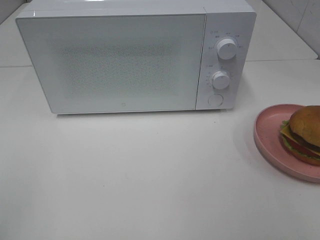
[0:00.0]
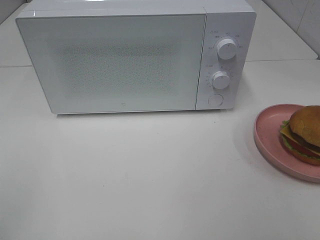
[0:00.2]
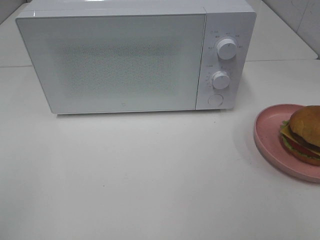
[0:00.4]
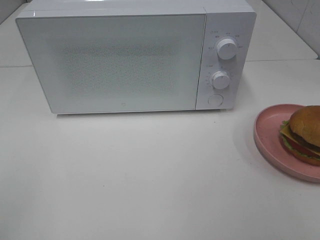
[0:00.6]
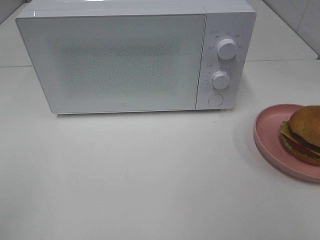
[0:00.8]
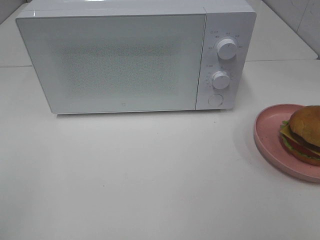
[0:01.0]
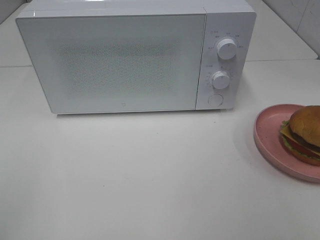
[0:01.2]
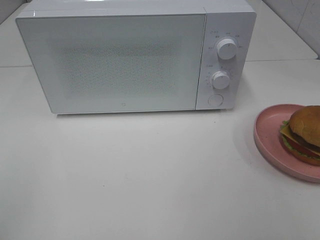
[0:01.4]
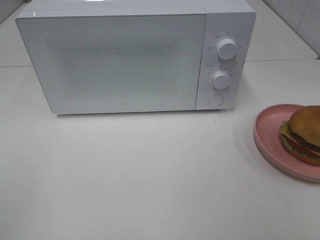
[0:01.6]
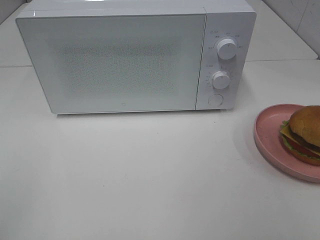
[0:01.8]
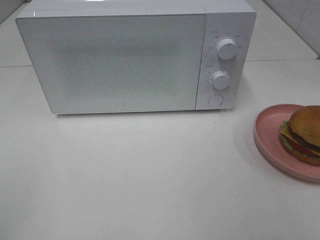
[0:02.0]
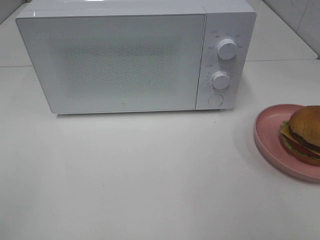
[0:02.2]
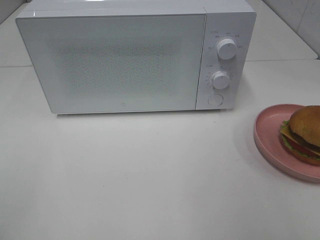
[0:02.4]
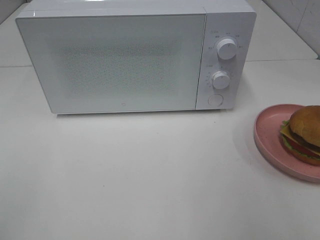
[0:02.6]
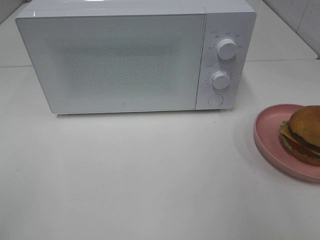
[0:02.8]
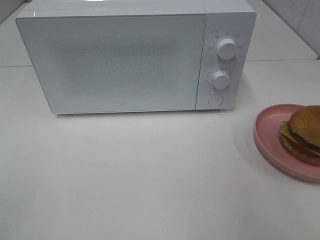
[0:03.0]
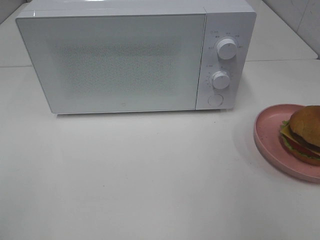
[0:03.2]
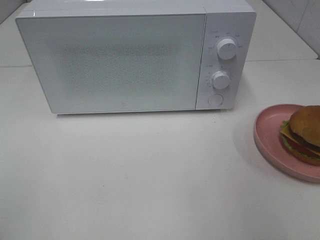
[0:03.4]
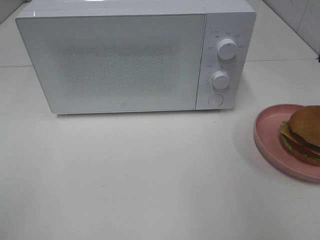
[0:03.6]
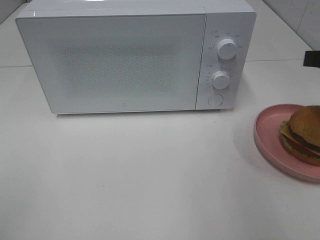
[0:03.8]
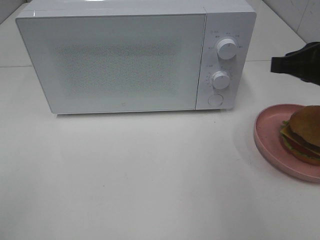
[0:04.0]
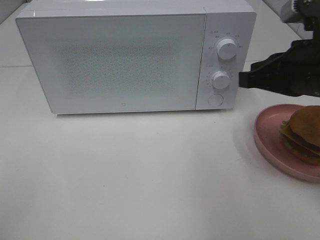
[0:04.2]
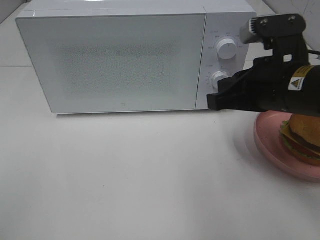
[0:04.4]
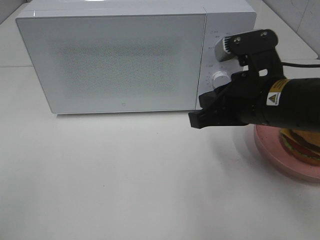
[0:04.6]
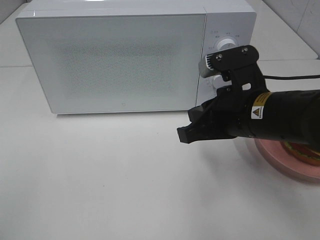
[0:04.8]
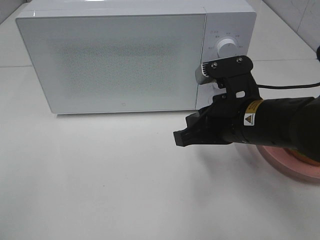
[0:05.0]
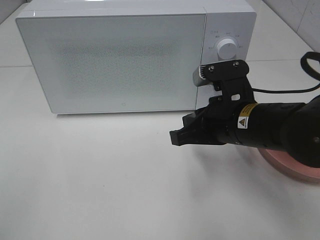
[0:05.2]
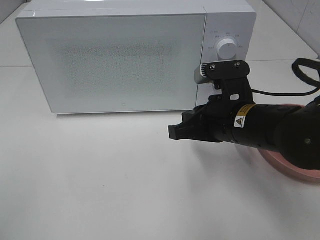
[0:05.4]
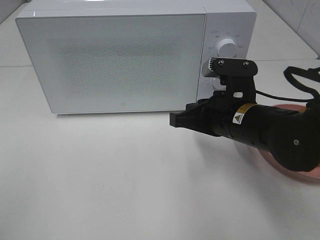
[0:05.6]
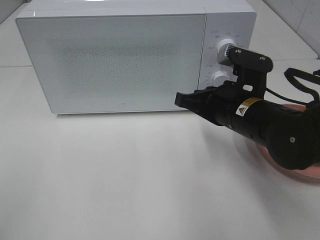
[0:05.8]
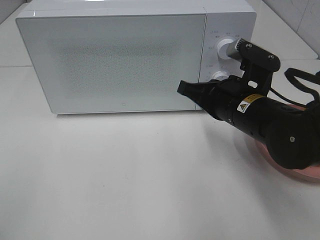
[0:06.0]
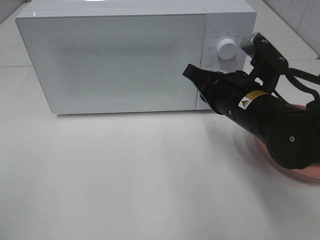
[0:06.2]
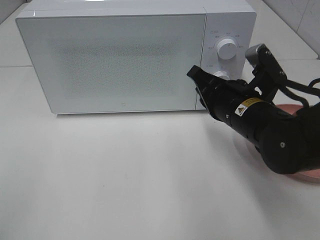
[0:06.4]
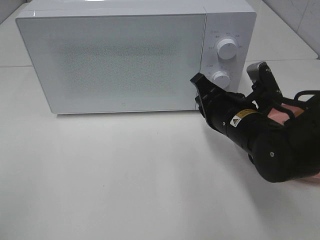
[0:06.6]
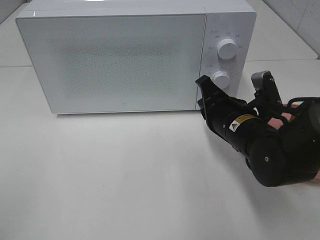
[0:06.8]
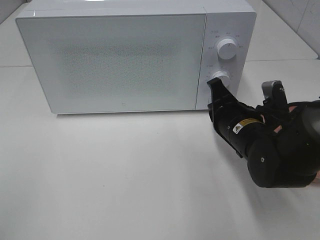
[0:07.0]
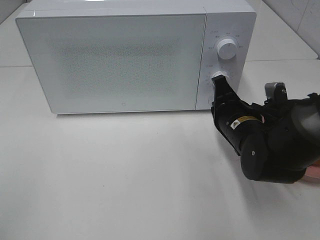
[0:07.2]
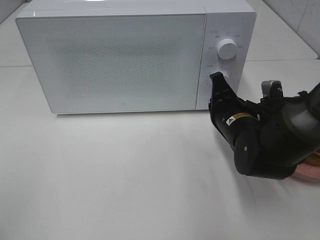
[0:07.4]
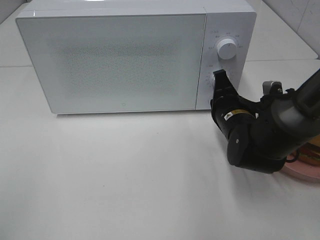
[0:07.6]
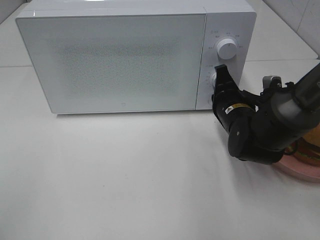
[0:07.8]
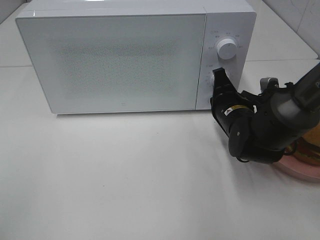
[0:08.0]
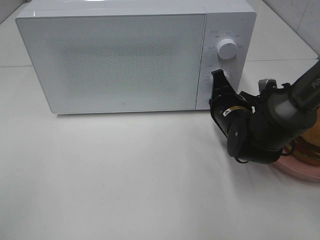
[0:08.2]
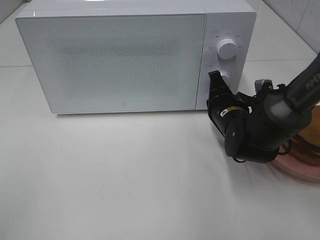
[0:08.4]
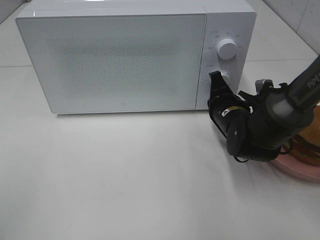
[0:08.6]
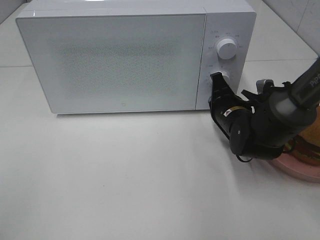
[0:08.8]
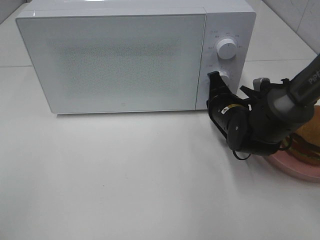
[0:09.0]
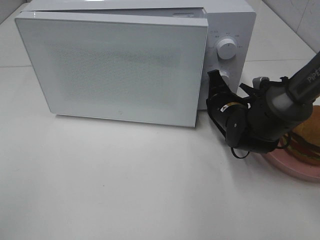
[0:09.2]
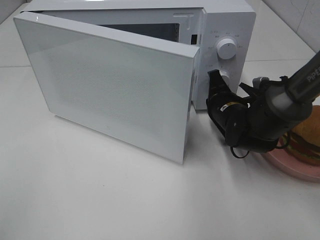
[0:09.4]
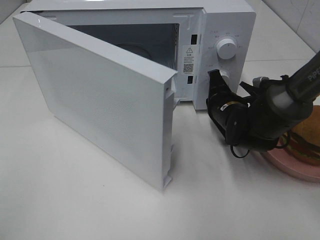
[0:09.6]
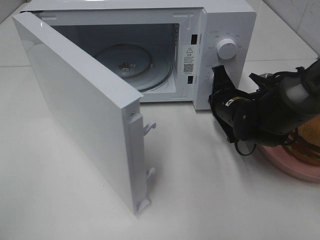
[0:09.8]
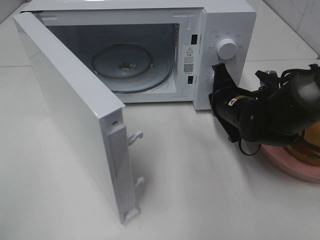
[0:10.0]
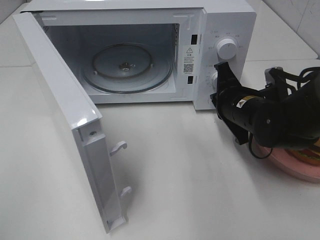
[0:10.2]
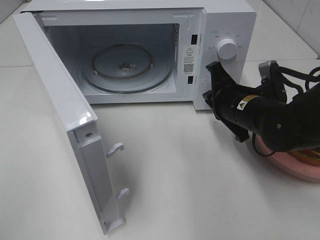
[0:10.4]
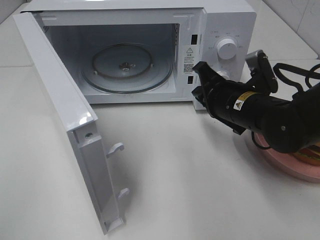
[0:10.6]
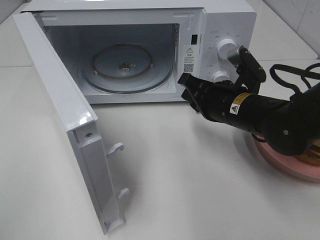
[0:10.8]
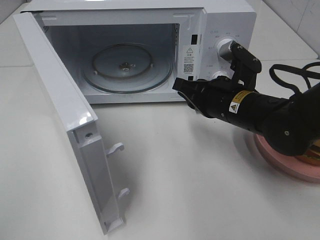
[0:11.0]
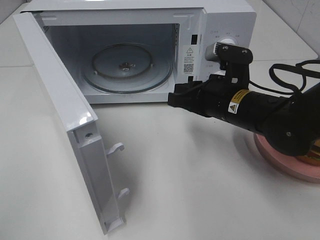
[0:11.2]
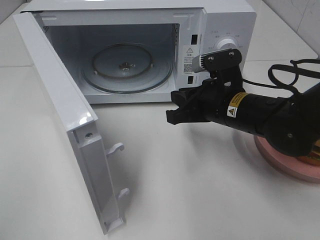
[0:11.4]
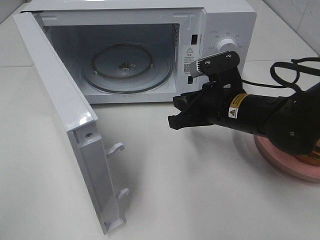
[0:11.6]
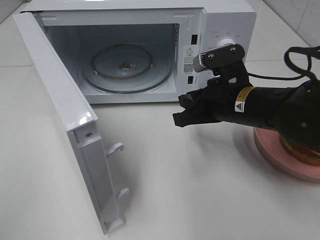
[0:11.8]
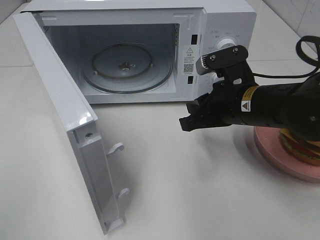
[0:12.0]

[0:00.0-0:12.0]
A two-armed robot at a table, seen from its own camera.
Task of the whole recording: Heat the burger.
Step, 0:00.0 to 0:10.0: Right hand: press the switch.
0:00.0 to 0:01.6: Neither gripper changes place.
0:03.0 to 0:04.4: The right gripper goes approximately 15 cm to the left, downward and forward, and closes.
0:04.4 to 0:06.0: The right gripper travels downward by about 5 cm.
0:06.0 to 0:07.6: The right gripper travels downward by about 5 cm.
0:07.6 to 0:09.0: The grippers stay close to where they were, moving slightly.
0:09.0 to 0:10.4: The right gripper goes about 5 cm upward.

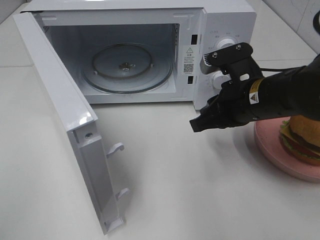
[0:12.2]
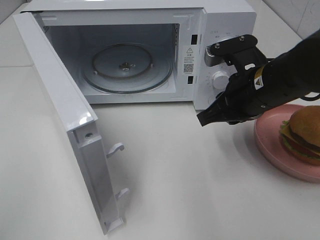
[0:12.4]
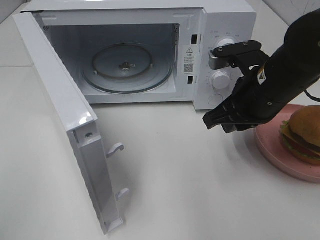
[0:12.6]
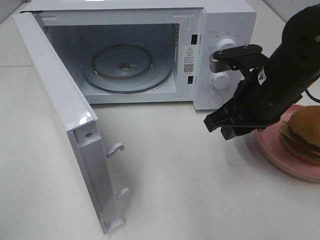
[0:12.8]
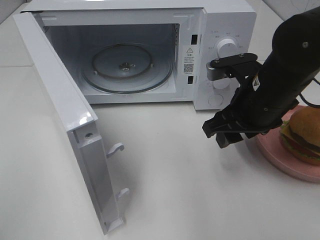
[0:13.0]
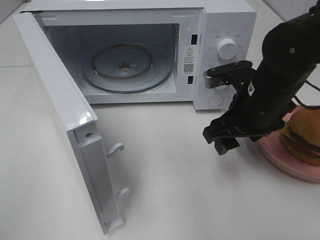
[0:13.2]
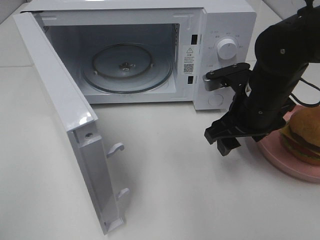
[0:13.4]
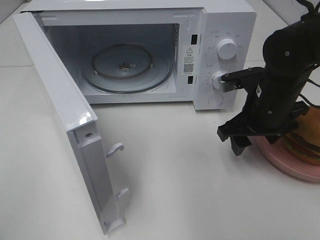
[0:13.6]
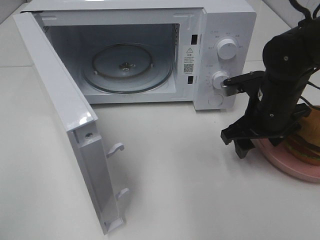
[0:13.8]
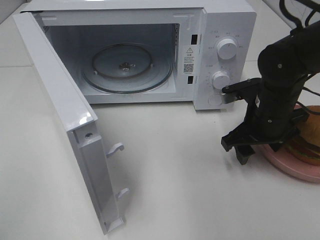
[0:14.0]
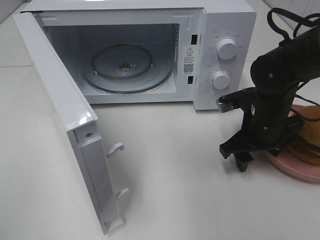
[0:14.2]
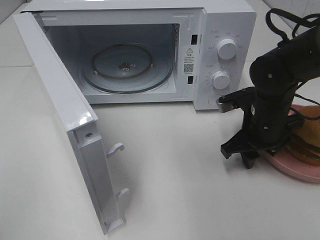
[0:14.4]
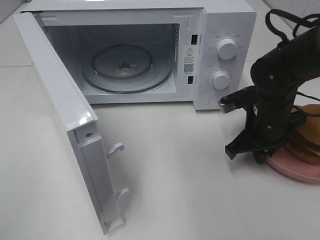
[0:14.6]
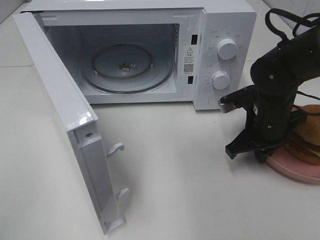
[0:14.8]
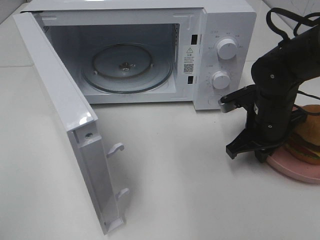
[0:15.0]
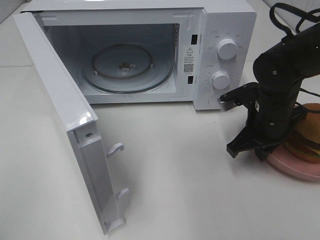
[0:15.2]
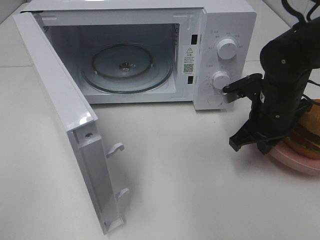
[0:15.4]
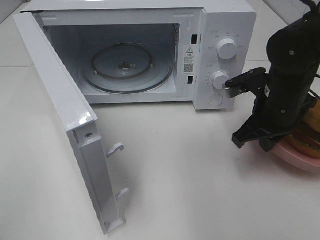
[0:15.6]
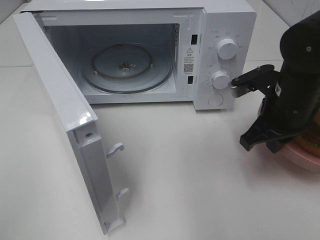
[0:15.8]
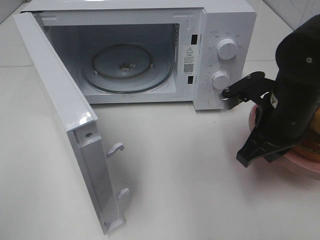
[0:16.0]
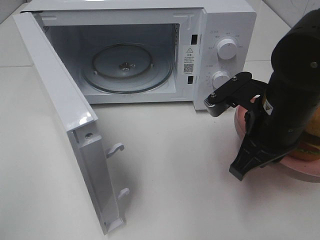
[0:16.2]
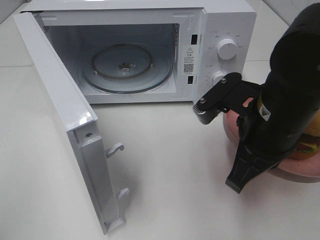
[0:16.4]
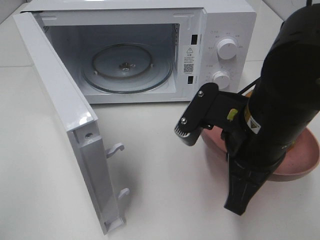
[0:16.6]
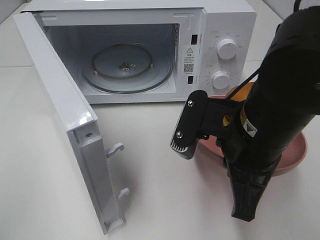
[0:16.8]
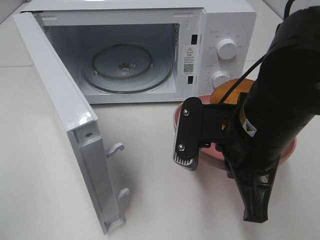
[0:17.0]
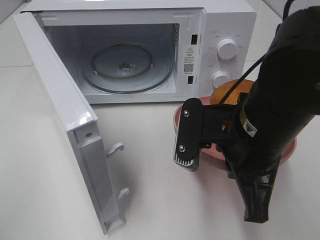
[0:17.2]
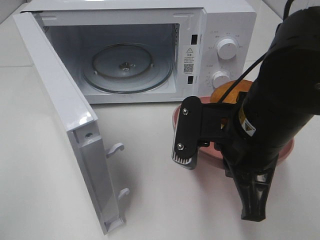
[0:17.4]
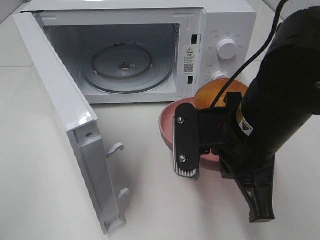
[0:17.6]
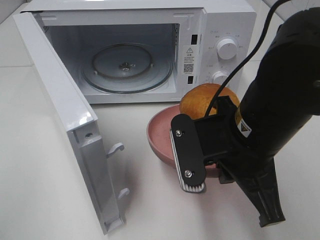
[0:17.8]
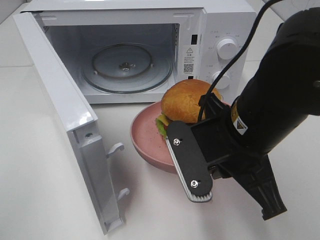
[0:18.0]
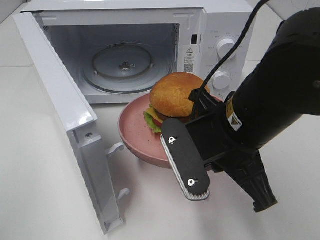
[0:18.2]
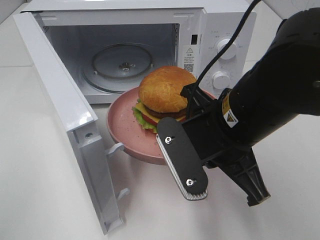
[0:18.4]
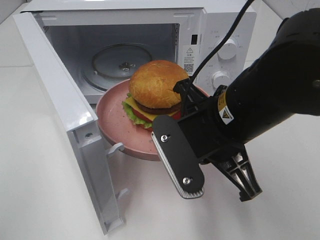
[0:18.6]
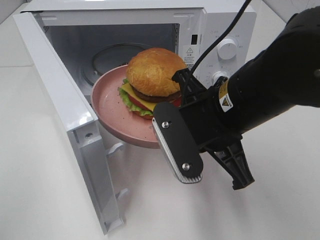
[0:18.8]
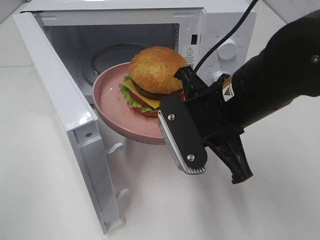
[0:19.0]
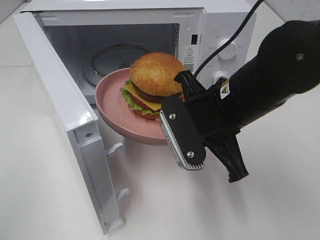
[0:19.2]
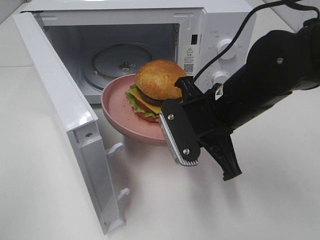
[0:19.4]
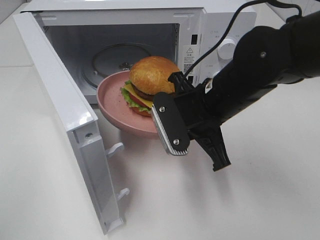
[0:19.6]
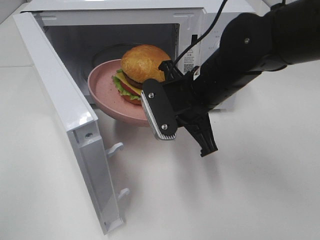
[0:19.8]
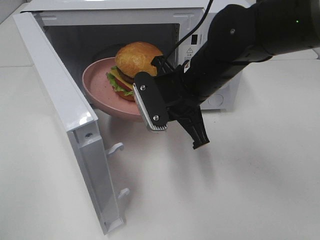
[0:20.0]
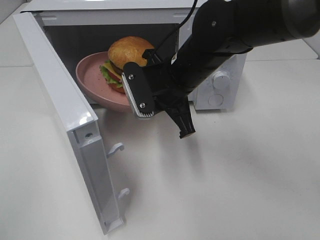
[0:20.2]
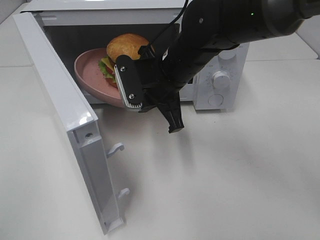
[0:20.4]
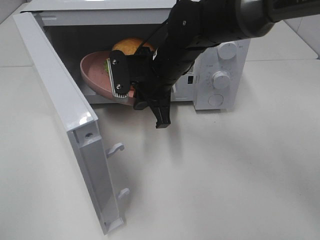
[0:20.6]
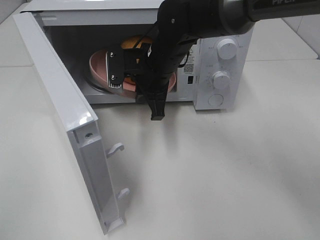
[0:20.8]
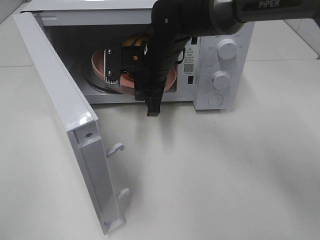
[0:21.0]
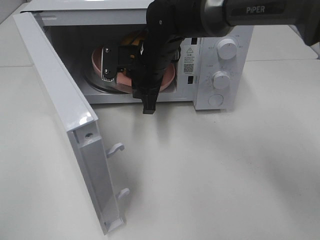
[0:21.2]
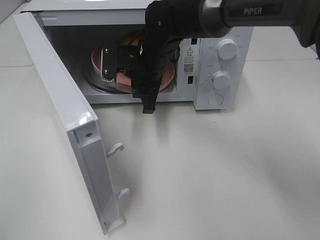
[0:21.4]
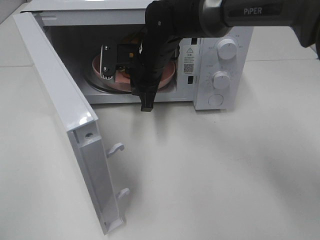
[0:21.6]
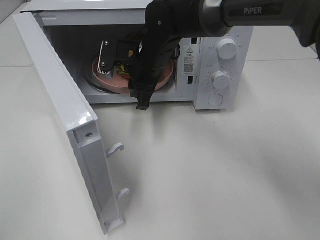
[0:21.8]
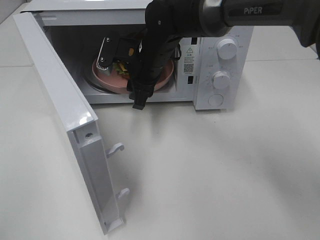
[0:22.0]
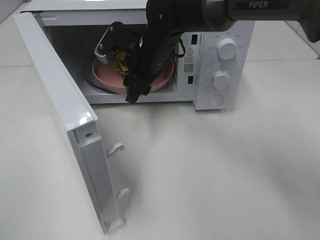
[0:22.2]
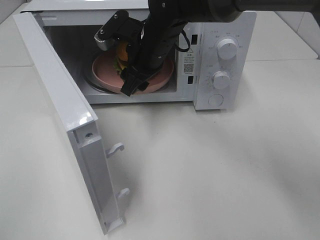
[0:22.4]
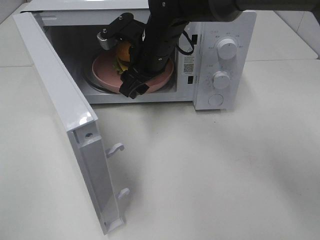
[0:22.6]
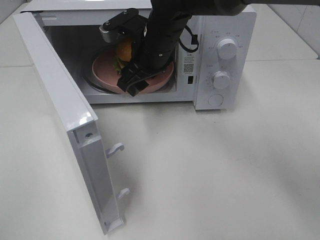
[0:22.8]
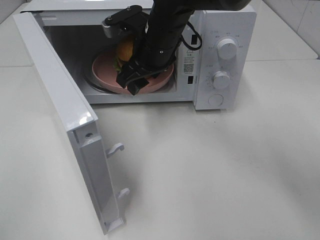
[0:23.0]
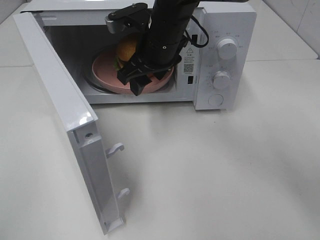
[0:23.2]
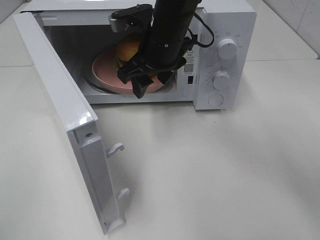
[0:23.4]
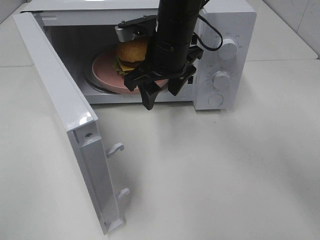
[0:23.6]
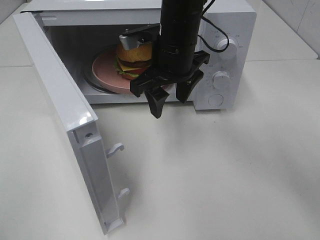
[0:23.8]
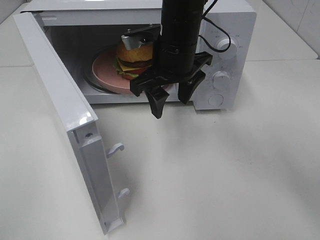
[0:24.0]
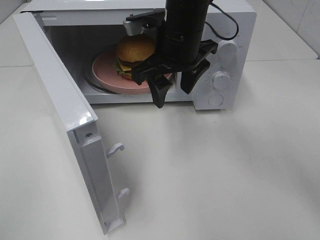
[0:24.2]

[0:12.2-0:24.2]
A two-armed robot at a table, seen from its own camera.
Task of the whole recording: Heat the burger.
Step, 0:12.2 to 0:15.0: Right hand: grab the plate with the hamburger.
Step, 0:15.2 to 0:21.8: Right hand: place the plate in the microwave.
0:12.2 to 0:13.8: The right gripper shifts by about 5 cm, and opens up.
0:13.8 to 0:15.2: The right gripper closes up.
0:15.2 to 0:16.6: The right gripper shifts some 15 cm backward, upward and to the left.
0:18.2 to 0:19.8: The right gripper goes some 10 cm forward.
0:19.8 to 0:21.2: The right gripper shifts about 15 cm forward and to the left.
0:21.2 to 0:22.6: The right gripper opens.
0:22.6 to 0:24.2: The right gripper travels upward by some 5 cm.
